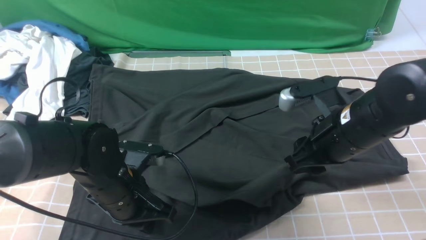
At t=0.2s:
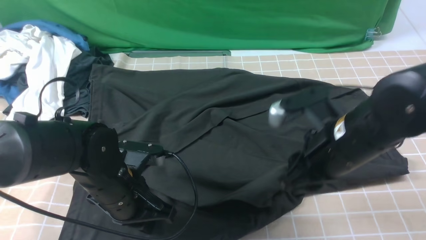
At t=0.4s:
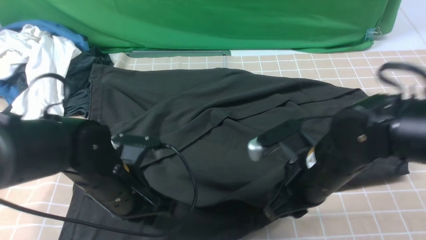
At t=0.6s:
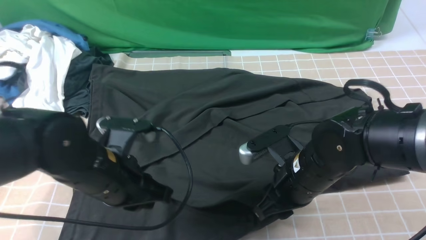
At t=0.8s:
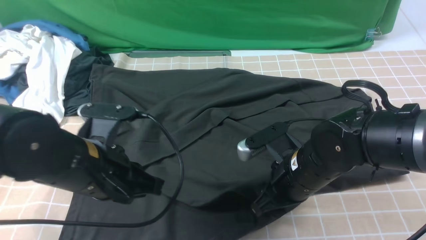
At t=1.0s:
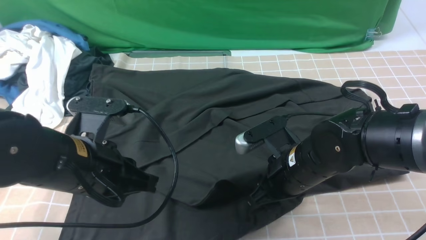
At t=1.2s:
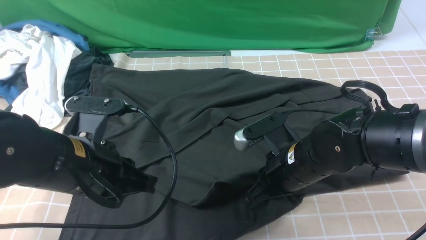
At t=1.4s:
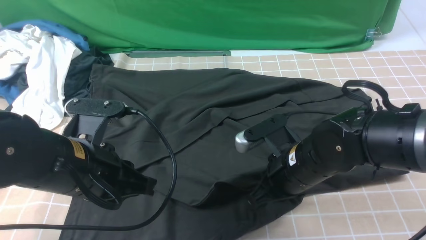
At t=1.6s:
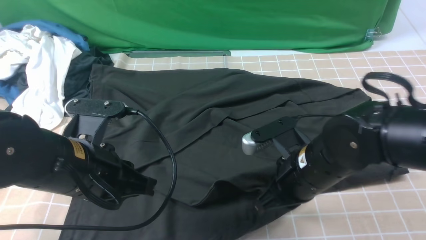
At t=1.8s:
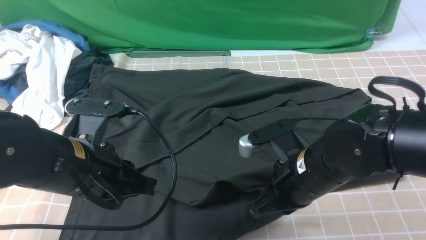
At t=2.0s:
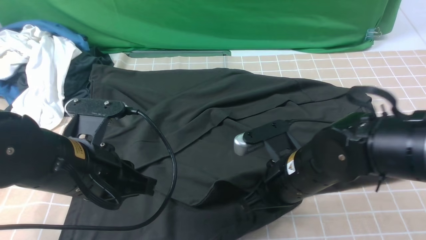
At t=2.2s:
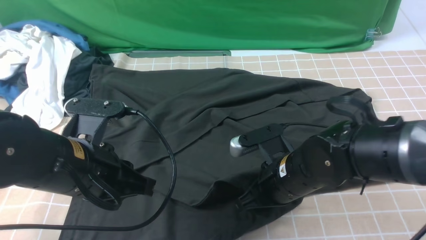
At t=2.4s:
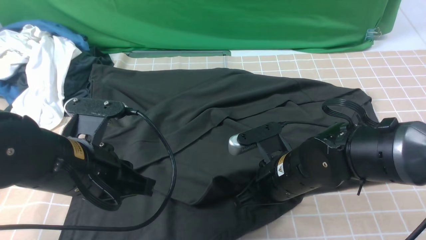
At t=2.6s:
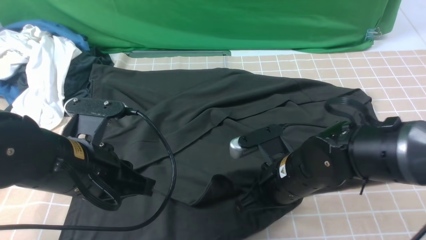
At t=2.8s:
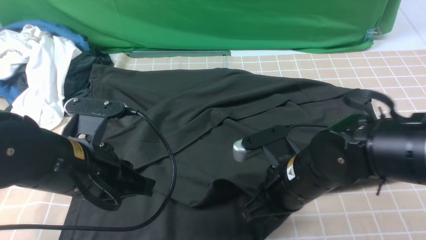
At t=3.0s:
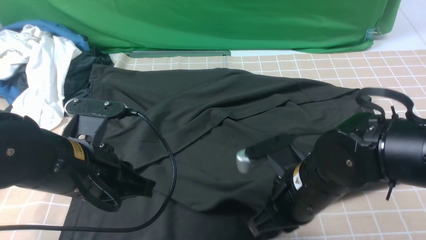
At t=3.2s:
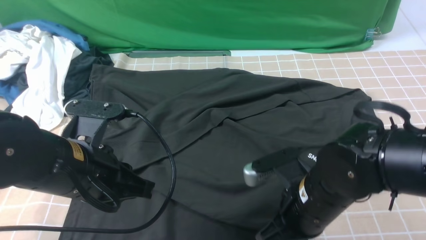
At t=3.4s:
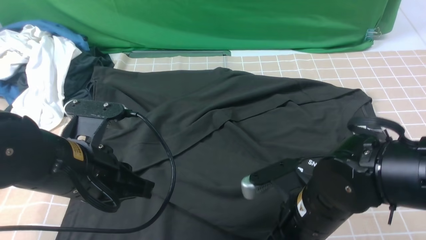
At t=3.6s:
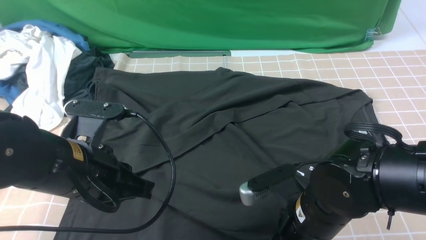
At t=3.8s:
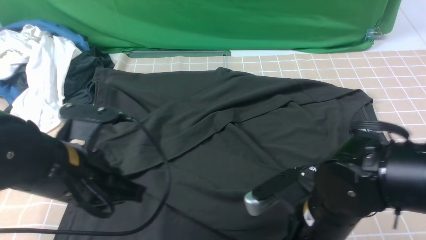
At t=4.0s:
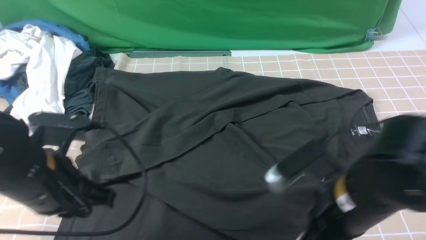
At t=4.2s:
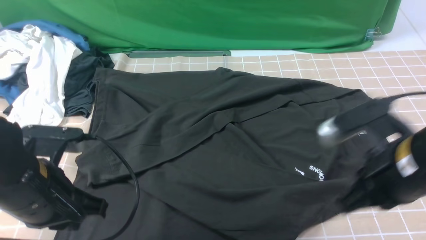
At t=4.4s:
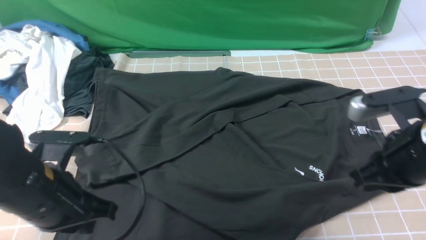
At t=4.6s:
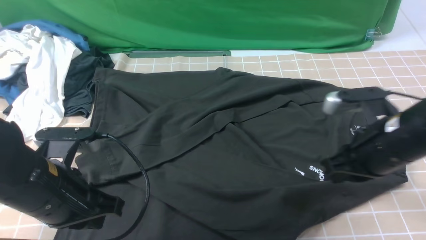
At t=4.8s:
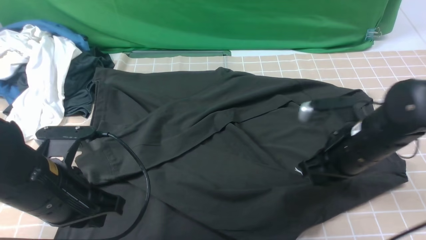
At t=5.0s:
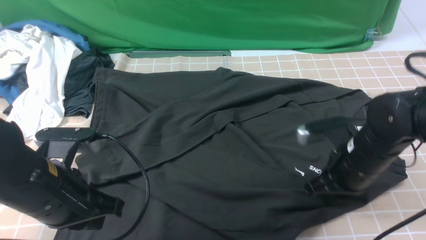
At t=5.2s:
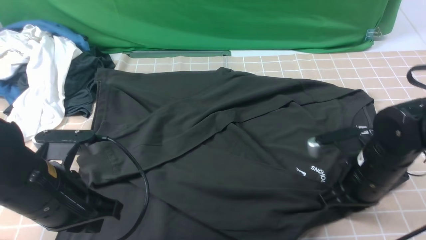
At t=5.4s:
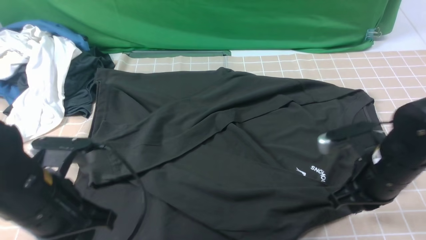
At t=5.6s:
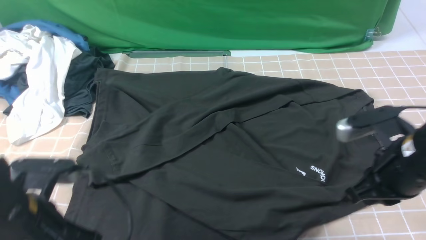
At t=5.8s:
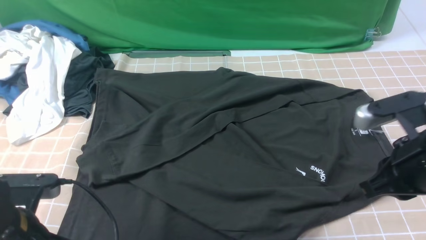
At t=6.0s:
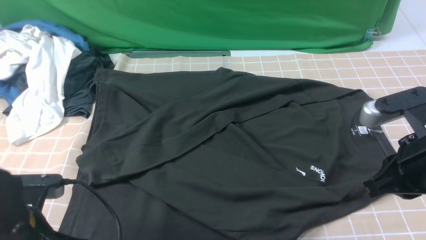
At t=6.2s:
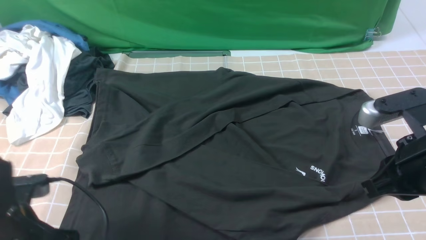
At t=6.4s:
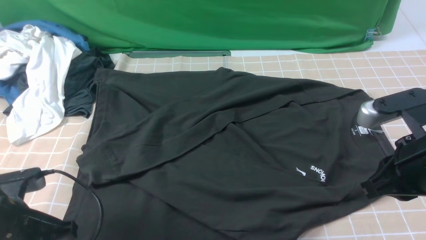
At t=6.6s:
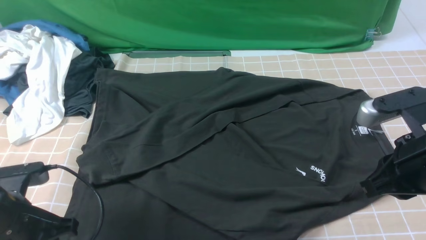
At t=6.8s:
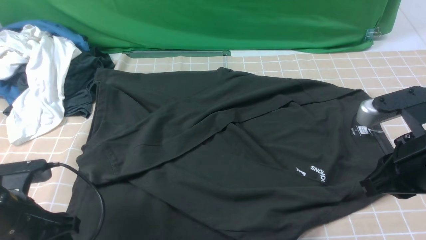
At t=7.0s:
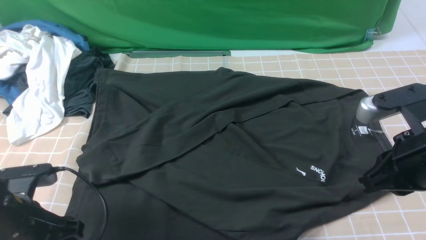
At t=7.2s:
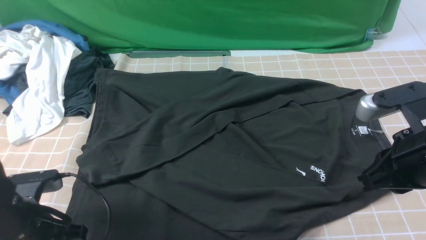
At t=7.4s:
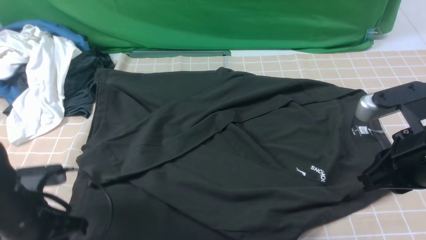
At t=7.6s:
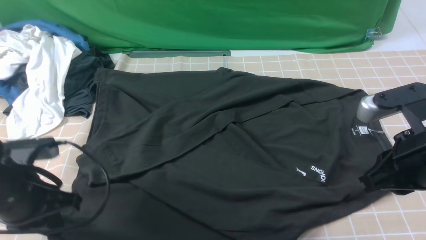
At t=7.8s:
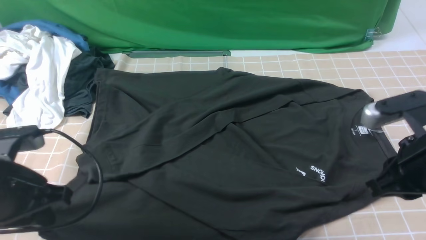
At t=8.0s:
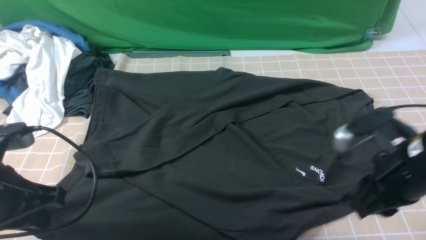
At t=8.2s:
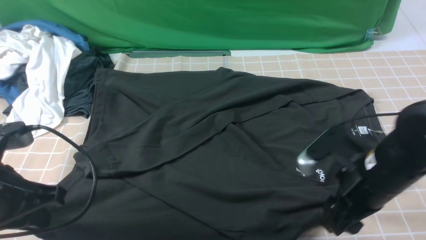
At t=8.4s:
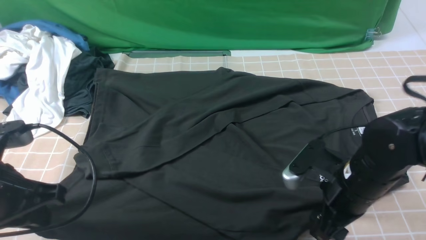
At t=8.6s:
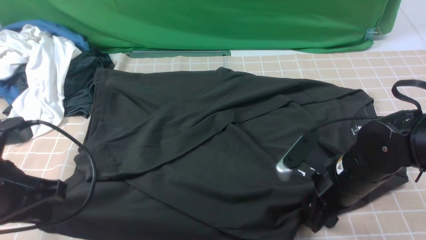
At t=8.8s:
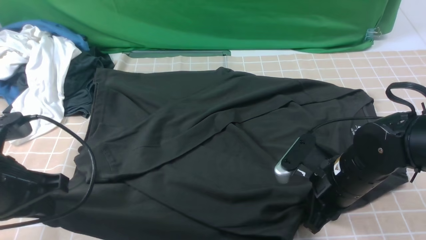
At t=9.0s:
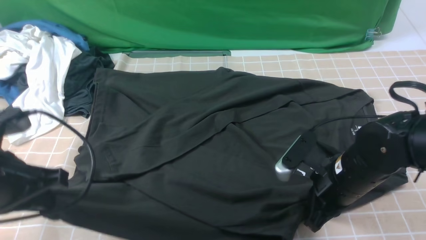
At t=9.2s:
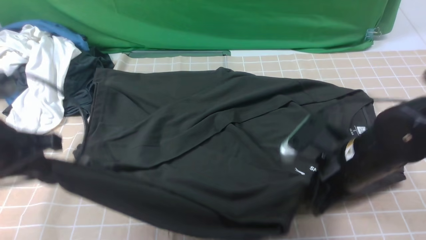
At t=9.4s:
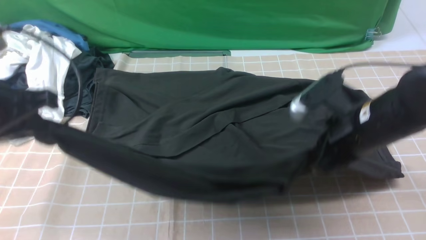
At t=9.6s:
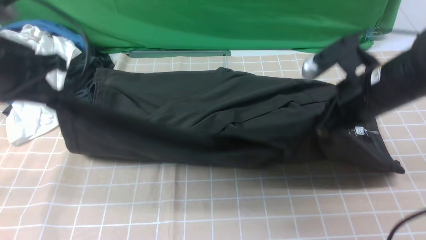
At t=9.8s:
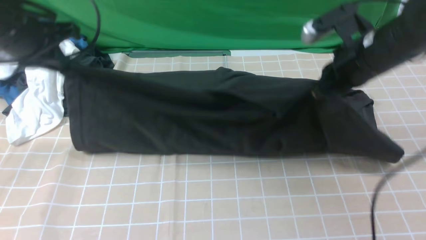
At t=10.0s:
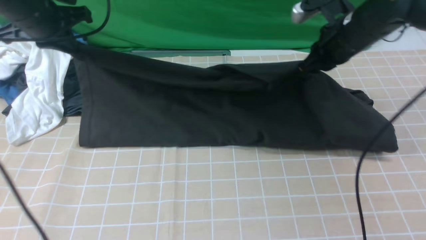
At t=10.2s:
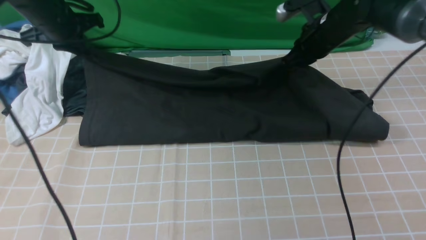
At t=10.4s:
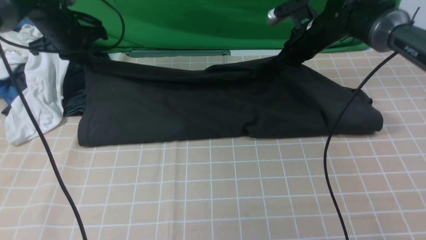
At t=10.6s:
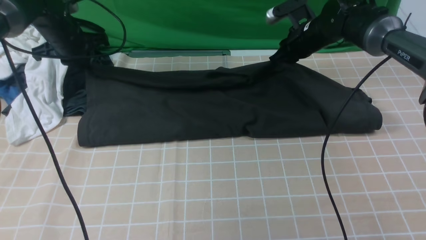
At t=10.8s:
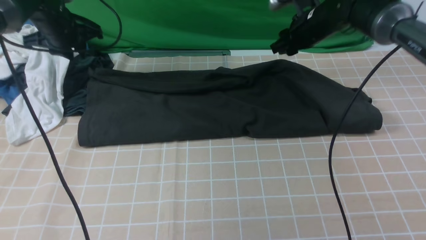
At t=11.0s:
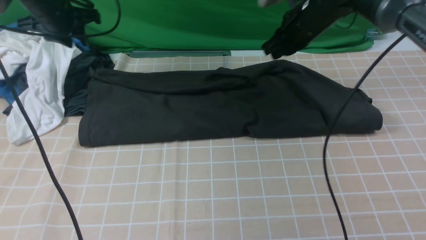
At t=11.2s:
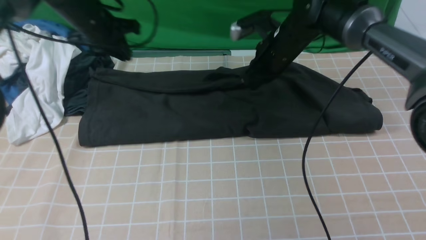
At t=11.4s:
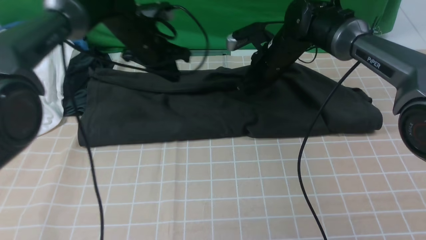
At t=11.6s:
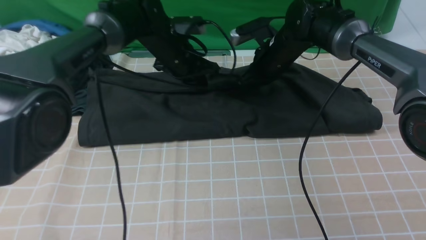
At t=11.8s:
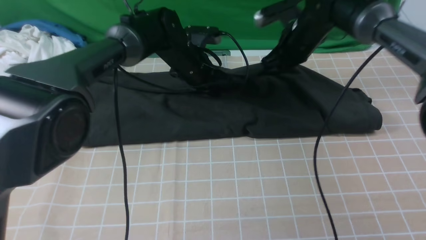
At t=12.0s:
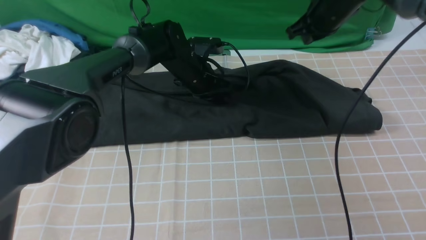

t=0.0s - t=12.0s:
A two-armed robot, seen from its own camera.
Step, t=0.0s - t=8.8s: use both arms simultaneously to clamp the lower edge of the clothing fabric.
Step, t=9.0s - t=10.6s: use both arms to drag the lower edge of the fabric forward and fold it over the upper edge.
t=0.0s - t=1.6s: The left gripper shifts approximately 10 cm upward; the right gripper moves some 5 cm, and closes.
t=1.6s - t=3.0s: The right gripper opens, then closes again.
t=3.0s - t=4.4s: The right gripper is displaced to the right and upward by some 15 cm.
t=4.4s - t=6.0s: The left gripper shifts by about 5 cm. The right gripper moves some 10 cm downward and comes back.
t=6.0s - t=7.6s: The left gripper ends up approximately 5 cm from where it was, and opens, then closes again.
t=7.6s - t=9.0s: The right gripper goes about 10 cm downward and to the left, and opens and closes again; the left gripper moves upward, some 5 cm.
t=9.0s - t=10.4s: Both grippers move forward, about 30 cm.
t=10.4s - t=12.0s: The left gripper heads to the right, covering about 25 cm. Meanwhile the right gripper is displaced upward by roughly 5 cm.

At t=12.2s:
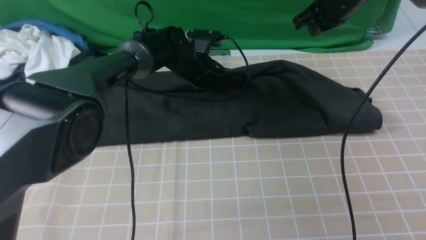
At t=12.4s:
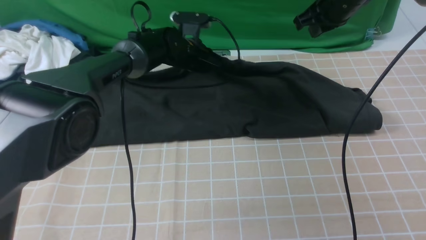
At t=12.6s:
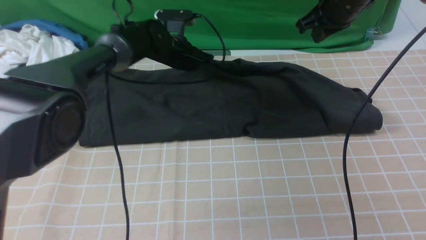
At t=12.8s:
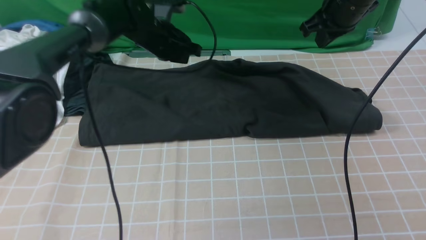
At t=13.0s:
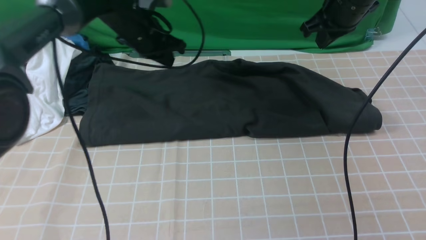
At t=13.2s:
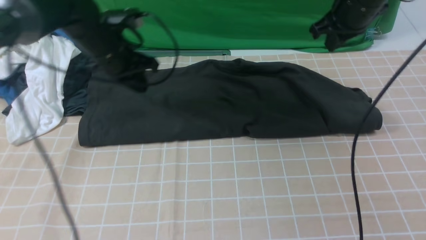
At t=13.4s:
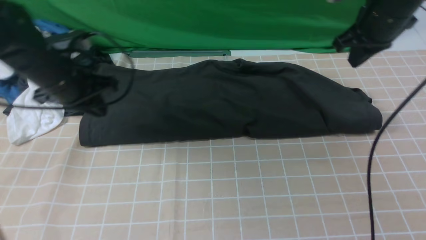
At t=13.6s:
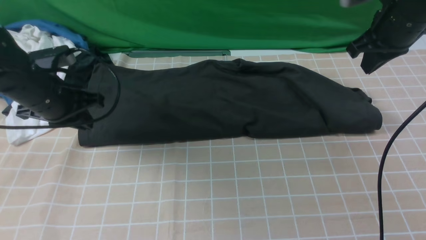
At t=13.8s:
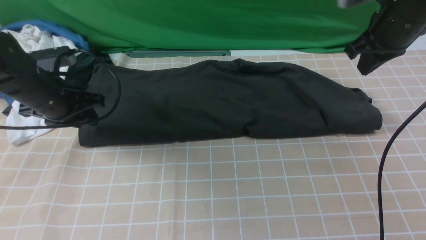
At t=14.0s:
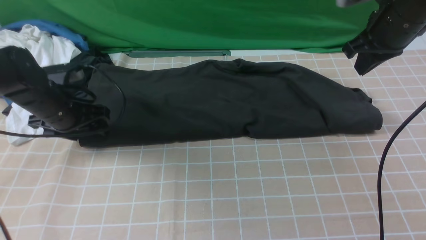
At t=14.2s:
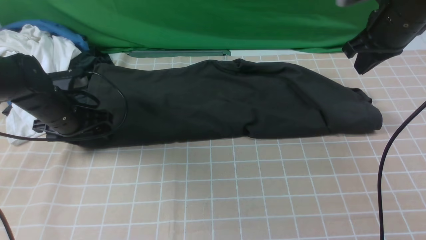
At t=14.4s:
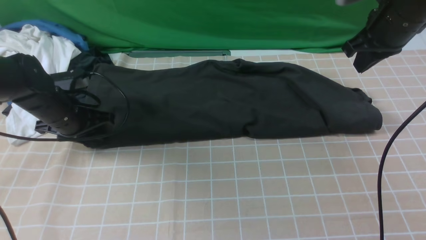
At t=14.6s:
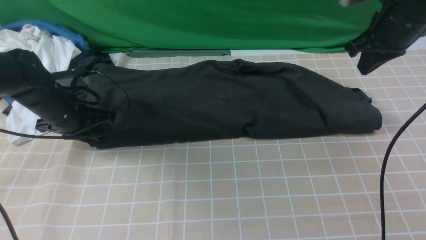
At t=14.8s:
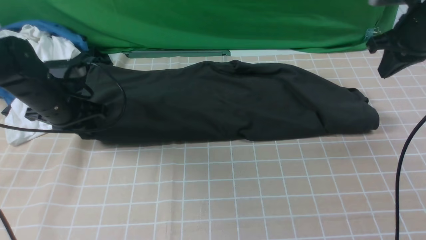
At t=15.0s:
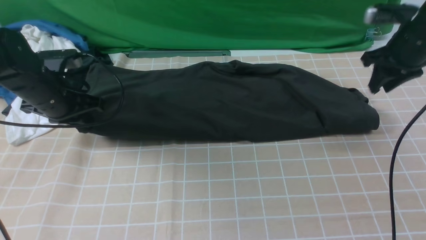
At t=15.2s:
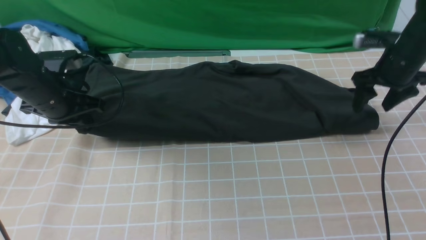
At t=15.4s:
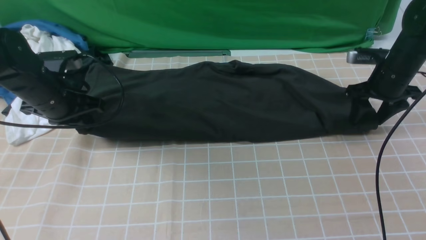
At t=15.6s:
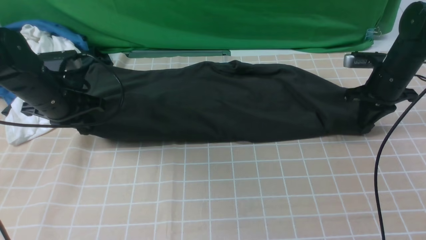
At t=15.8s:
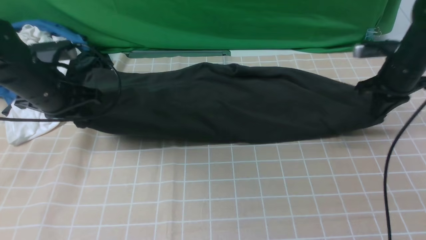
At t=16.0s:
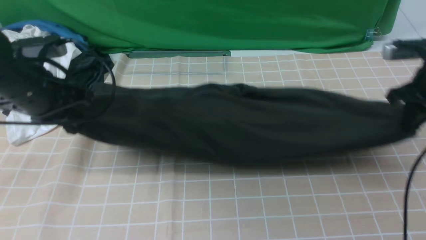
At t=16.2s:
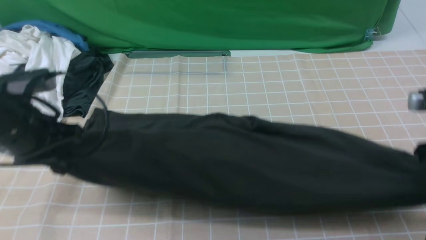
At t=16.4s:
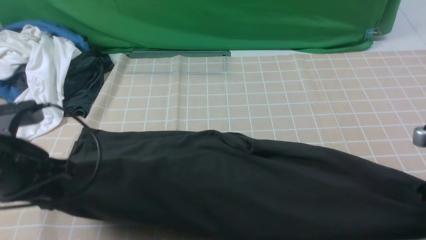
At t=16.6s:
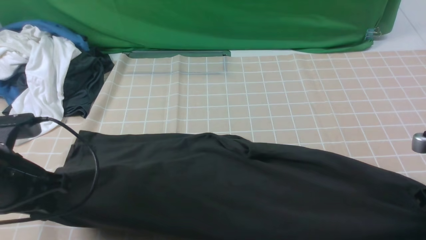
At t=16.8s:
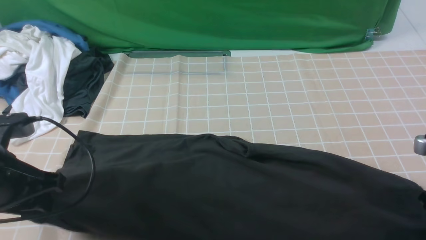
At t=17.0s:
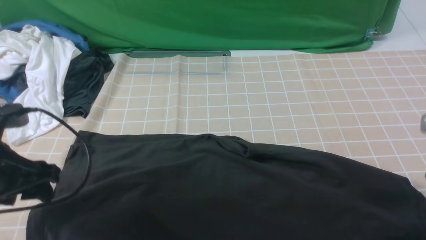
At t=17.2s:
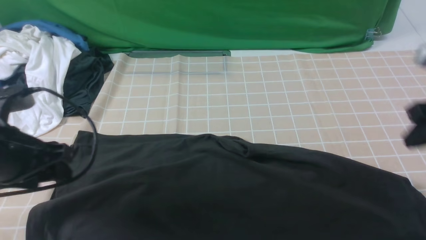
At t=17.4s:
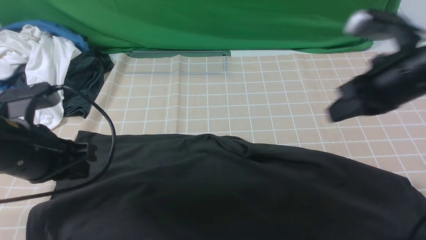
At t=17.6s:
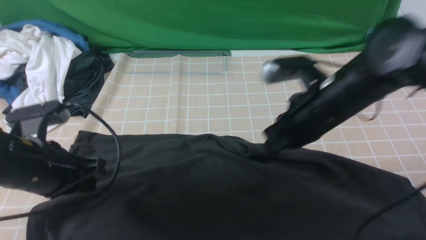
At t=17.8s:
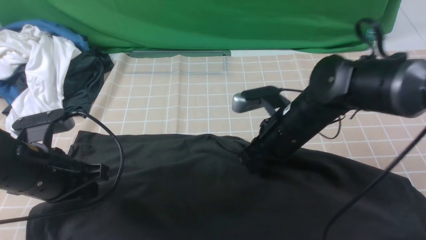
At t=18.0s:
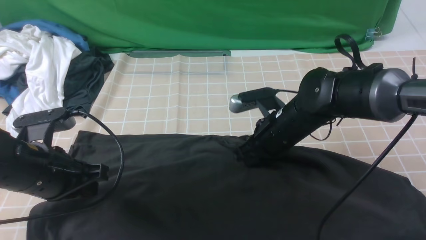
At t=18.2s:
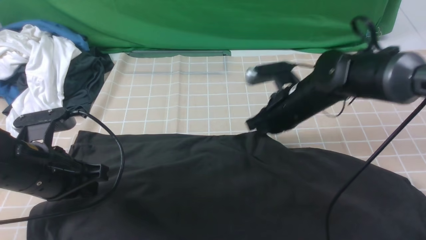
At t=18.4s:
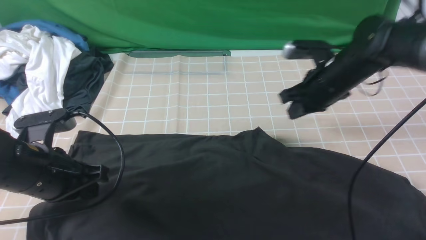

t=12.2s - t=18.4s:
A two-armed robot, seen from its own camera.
t=12.2s - t=13.8s: The right gripper is displaced backward and to the right by some 10 cm. The left gripper travels to the left and backward by some 25 cm, and opens.
t=13.8s - t=15.4s: The left gripper closes up. Meanwhile the right gripper is displaced downward and to the right by about 15 cm, and opens up.
t=15.4s - t=16.8s: Both grippers travel together backward, roughly 20 cm. The right gripper closes its fingers; the left gripper opens.
t=16.8s - t=18.4s: The right gripper heads forward and to the left, covering about 20 cm, and closes. Meanwhile the left gripper ends up approximately 5 cm from where it was, and closes.
